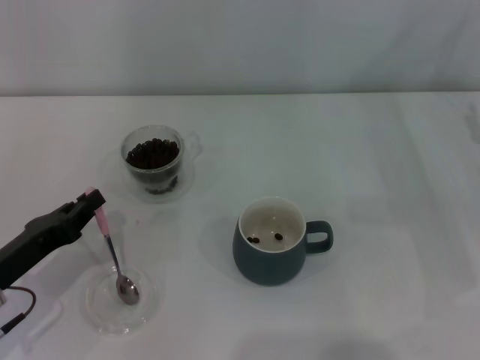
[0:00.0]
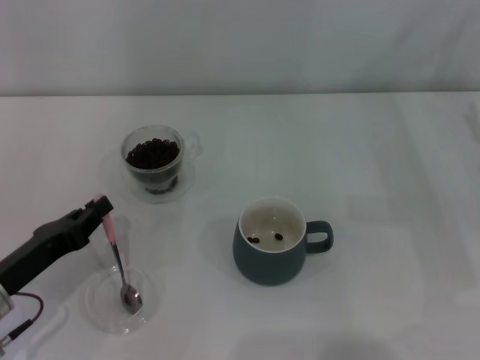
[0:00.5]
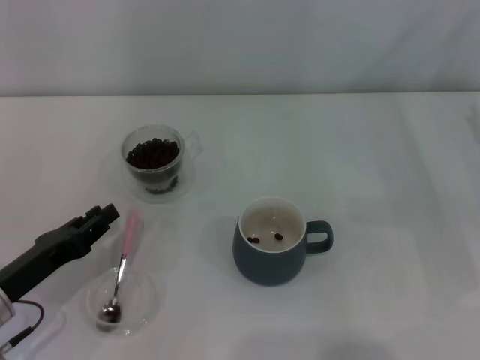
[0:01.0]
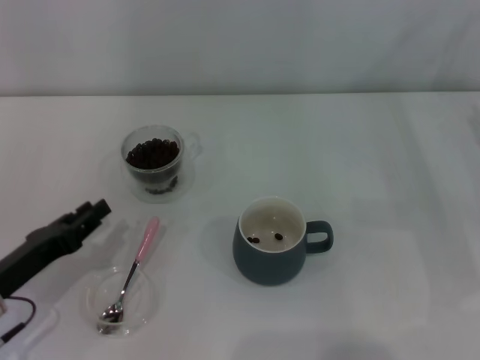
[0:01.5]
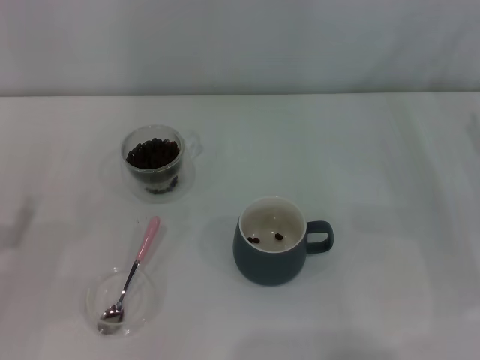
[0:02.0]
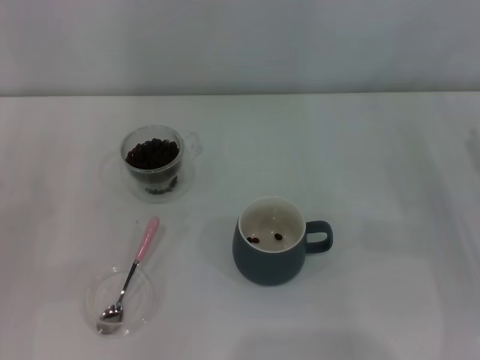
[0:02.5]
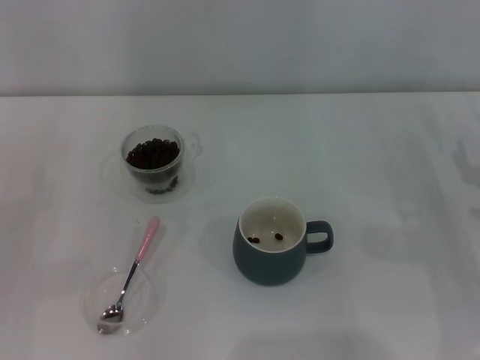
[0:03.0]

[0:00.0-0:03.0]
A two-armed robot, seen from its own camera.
Task of the whole recording: Use a pink spoon to take out the coffee beans from the glass and pour them into the gray cup.
0:00.0 to 0:01.5: The left gripper opens.
0:01.5 to 0:03.0: The left gripper moves to the left, approximately 10 cm, and opens up.
